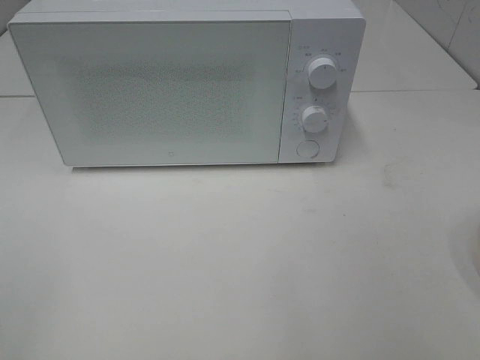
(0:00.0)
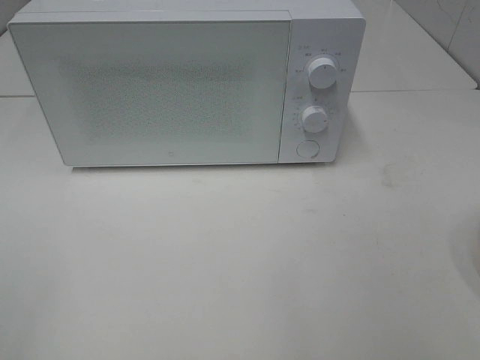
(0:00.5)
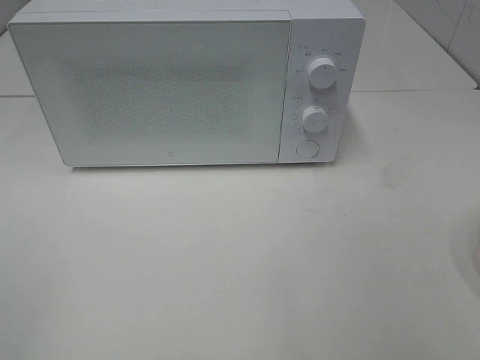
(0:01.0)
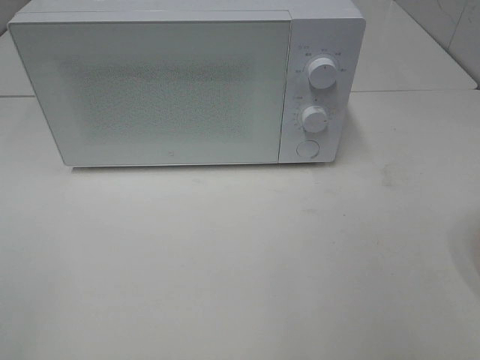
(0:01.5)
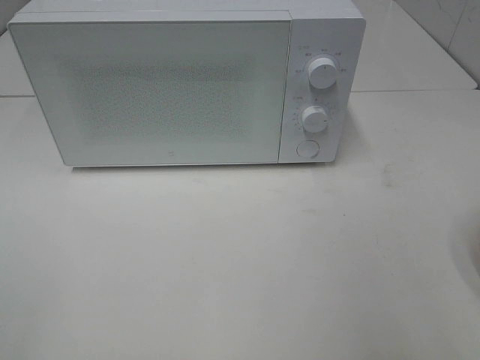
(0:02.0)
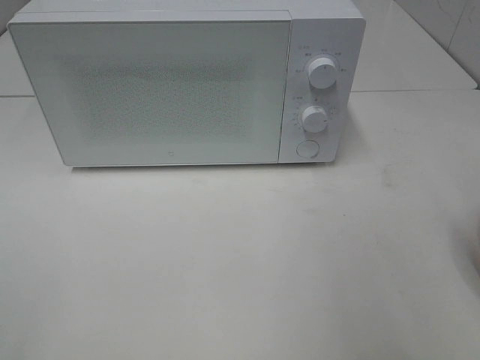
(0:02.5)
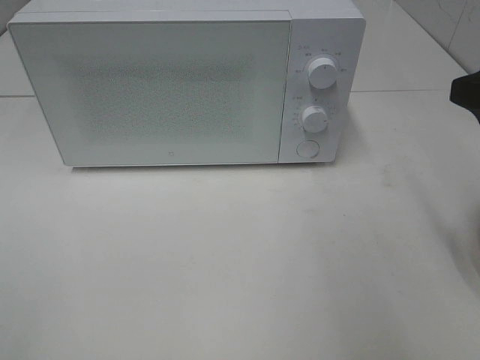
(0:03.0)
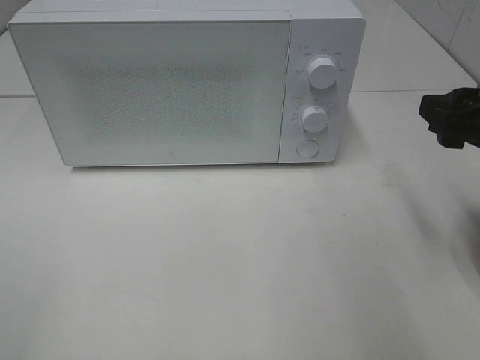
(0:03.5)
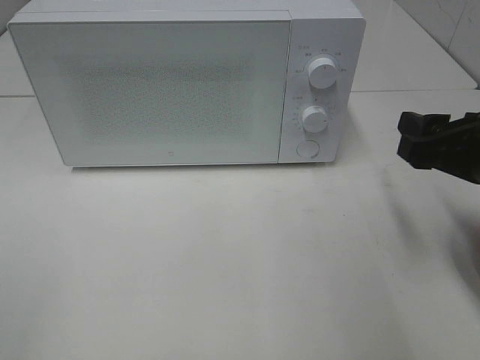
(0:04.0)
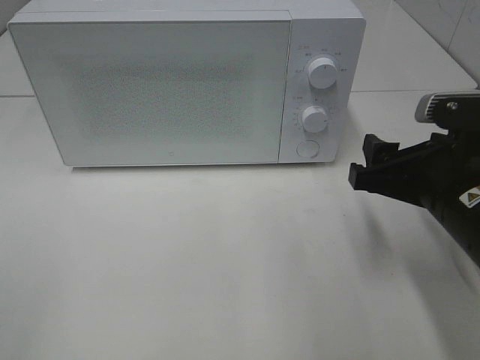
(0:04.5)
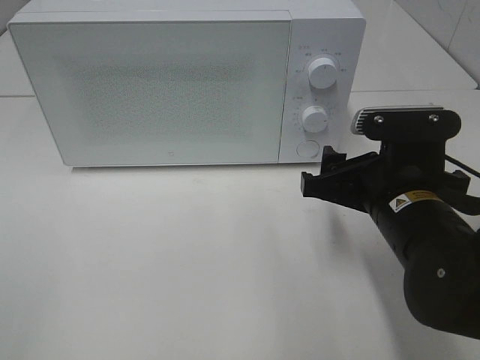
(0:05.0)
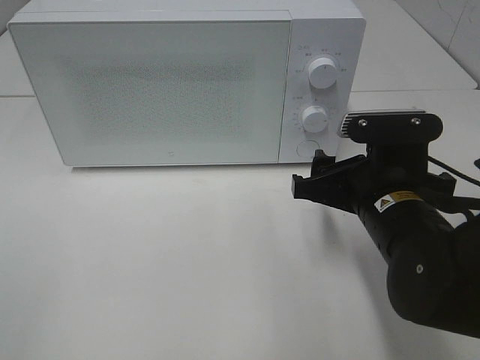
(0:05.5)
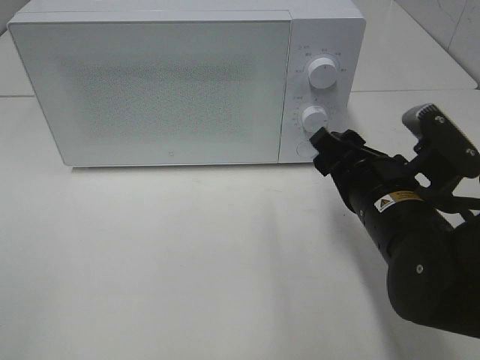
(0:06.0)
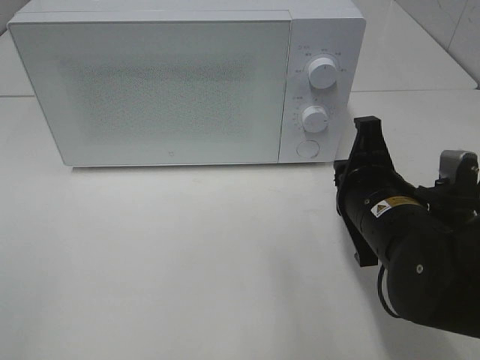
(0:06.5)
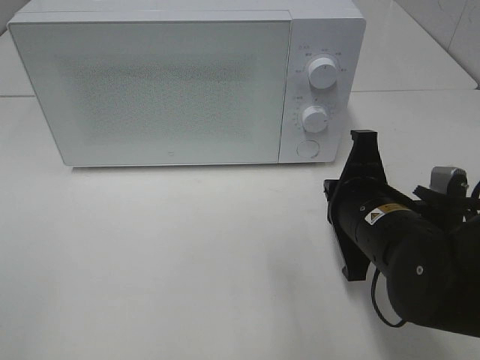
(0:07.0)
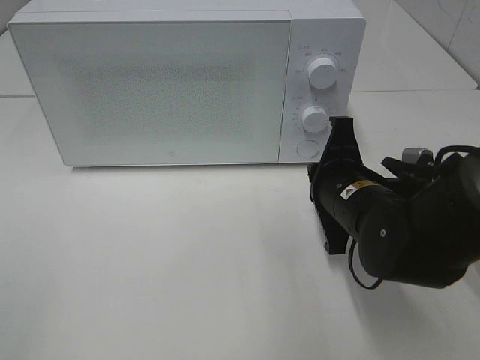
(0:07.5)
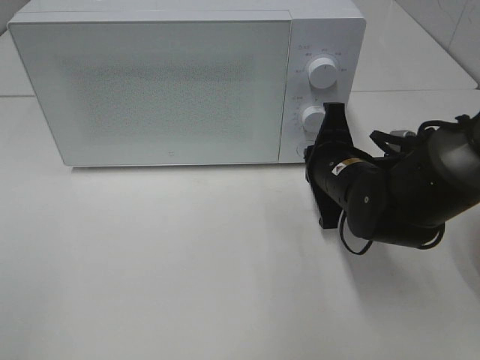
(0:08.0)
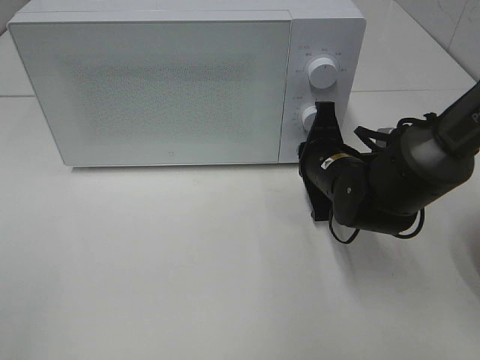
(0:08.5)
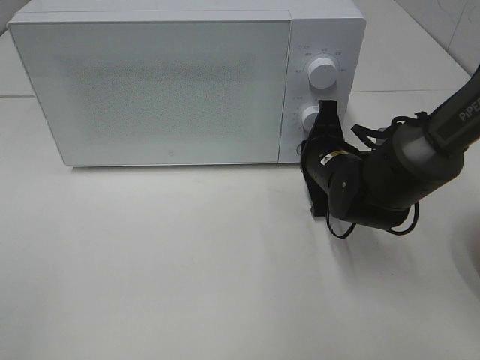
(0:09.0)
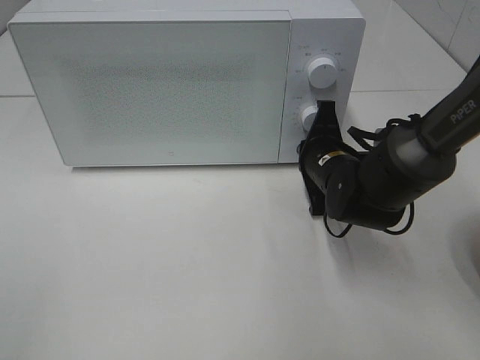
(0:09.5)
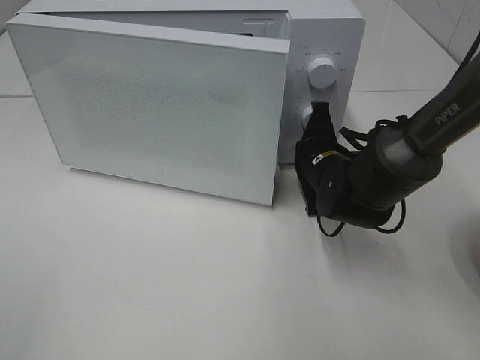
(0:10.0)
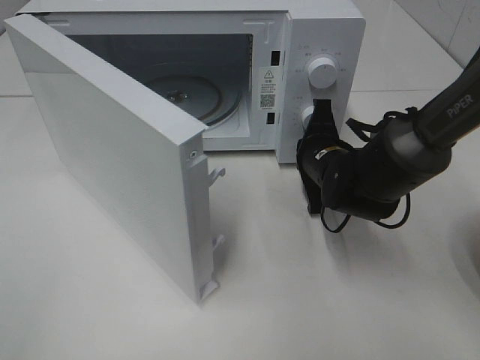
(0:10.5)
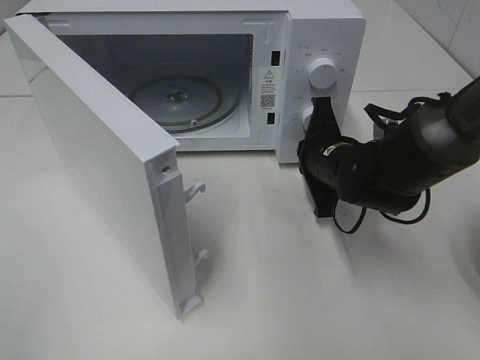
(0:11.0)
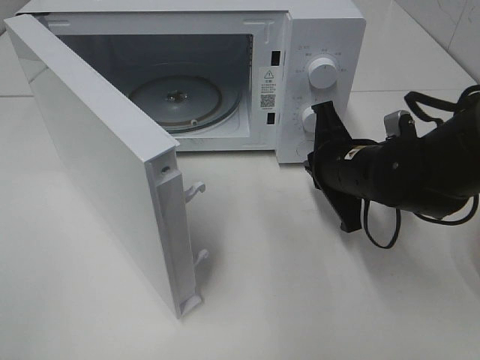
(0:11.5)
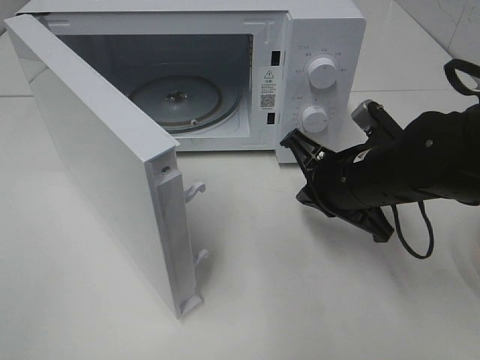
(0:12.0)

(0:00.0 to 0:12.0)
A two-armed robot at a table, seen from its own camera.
Task of the whole recording: Heat the burger.
Step, 0:00.0 - 0:11.0: Right hand: press the switch.
0:02.0 - 0:04.0: The right gripper moves forward and downward, about 15 cm.
0:04.0 - 0:06.0: The right gripper moves to the left and downward, roughly 10 cm.
0:06.0 - 0:08.0: The right gripper shifts about 10 cm forward, and closes up.
0:08.0 - 0:10.0: The right gripper changes place by some 5 cm.
0:10.0 - 0:12.0: The right gripper is displaced backward and upward by some 10 cm.

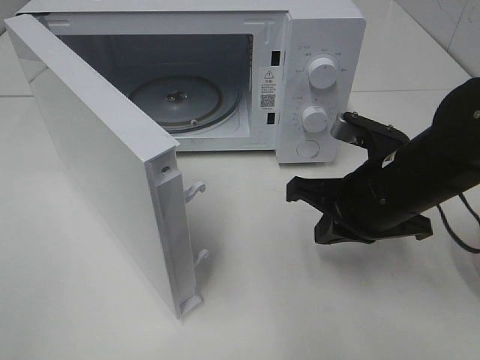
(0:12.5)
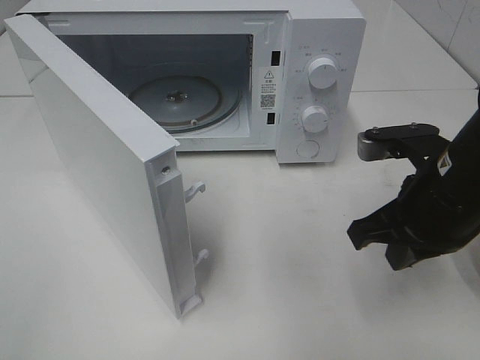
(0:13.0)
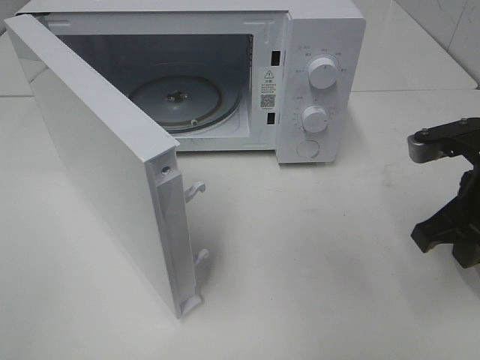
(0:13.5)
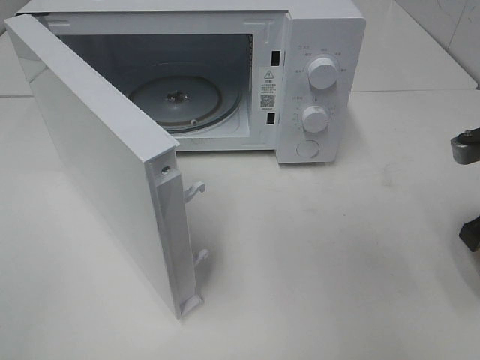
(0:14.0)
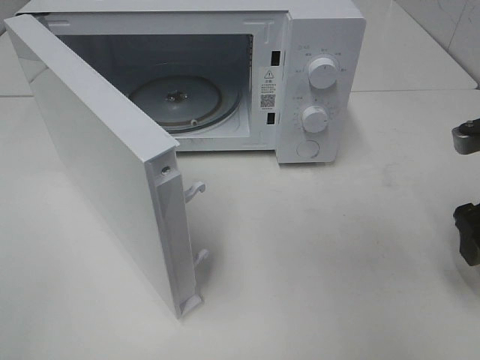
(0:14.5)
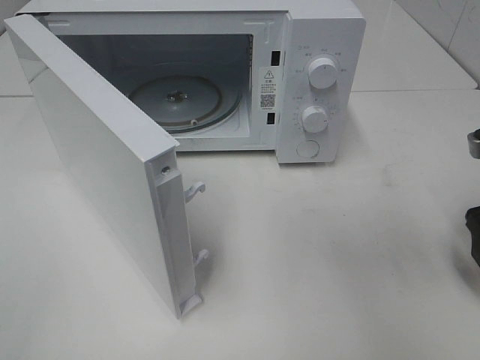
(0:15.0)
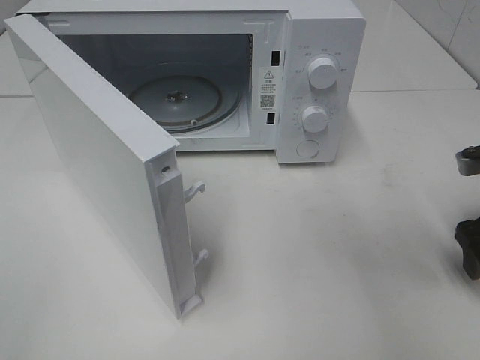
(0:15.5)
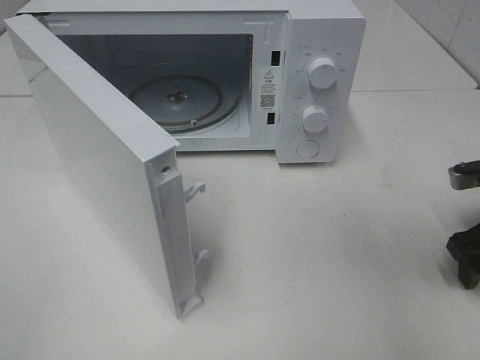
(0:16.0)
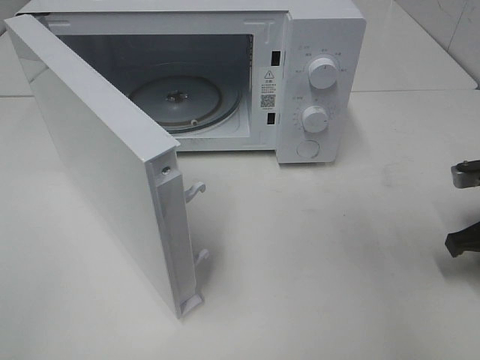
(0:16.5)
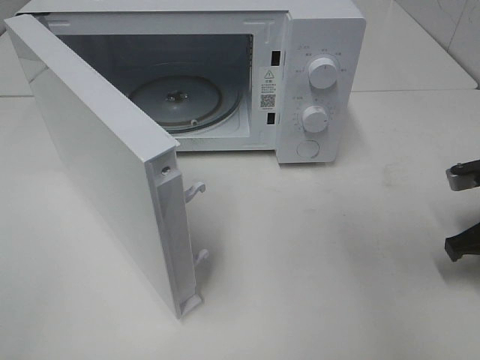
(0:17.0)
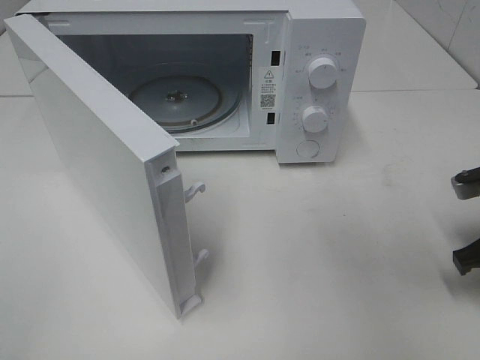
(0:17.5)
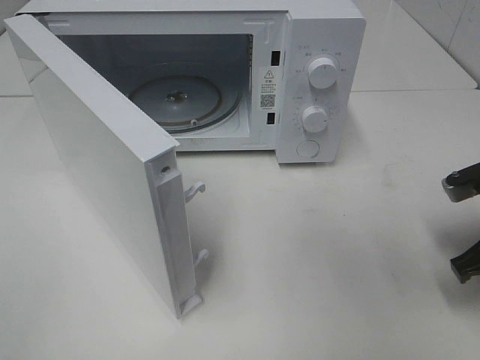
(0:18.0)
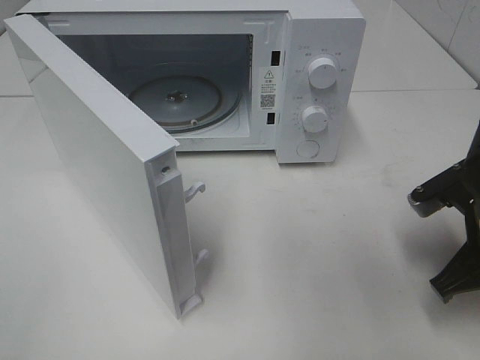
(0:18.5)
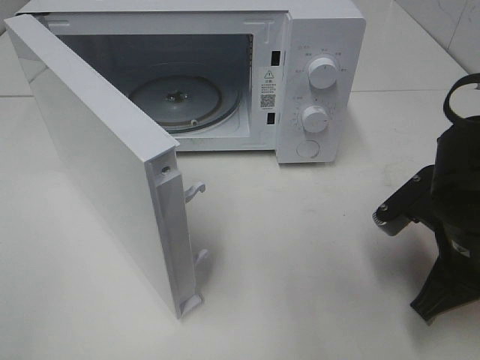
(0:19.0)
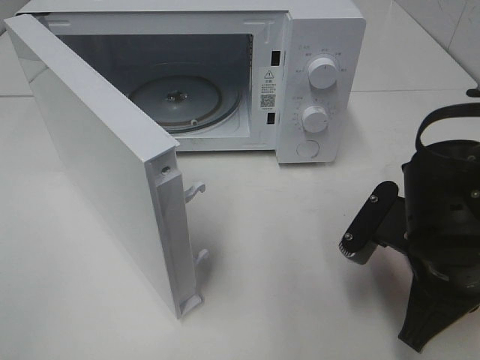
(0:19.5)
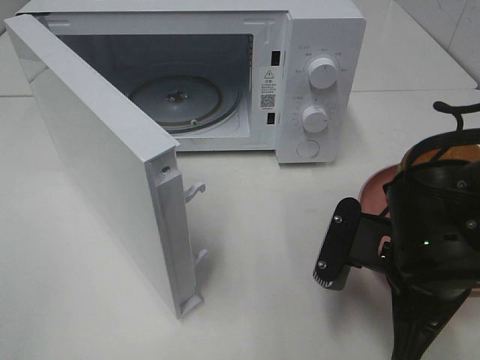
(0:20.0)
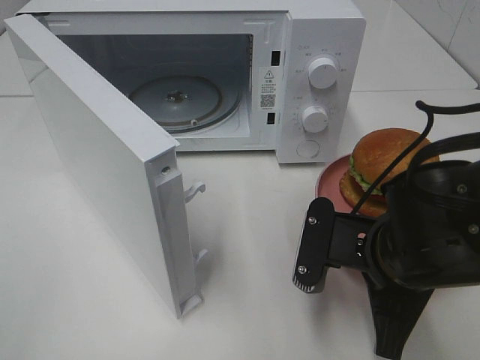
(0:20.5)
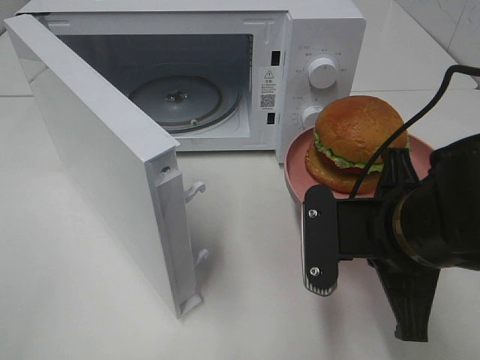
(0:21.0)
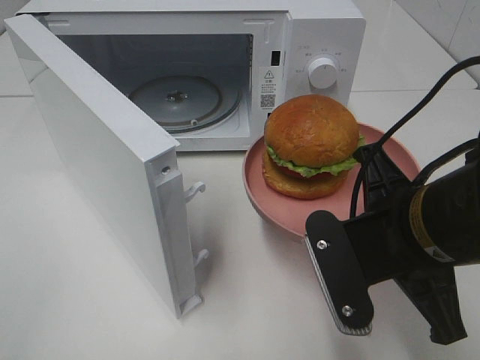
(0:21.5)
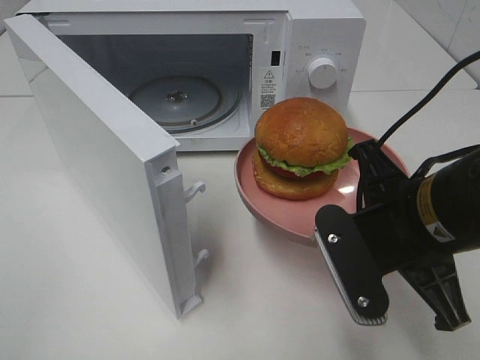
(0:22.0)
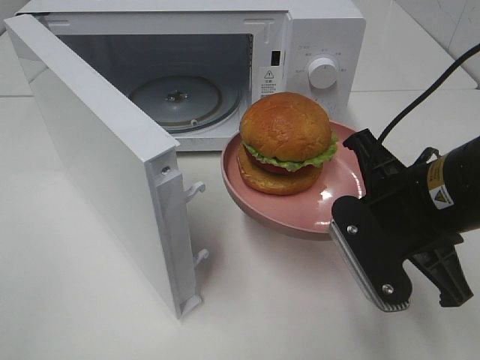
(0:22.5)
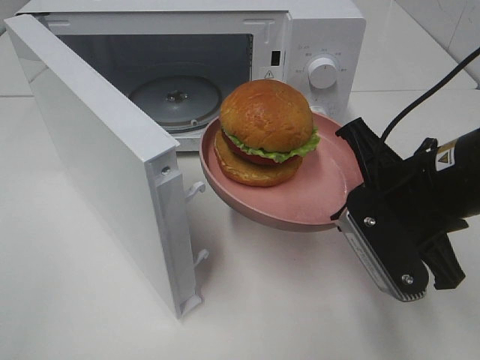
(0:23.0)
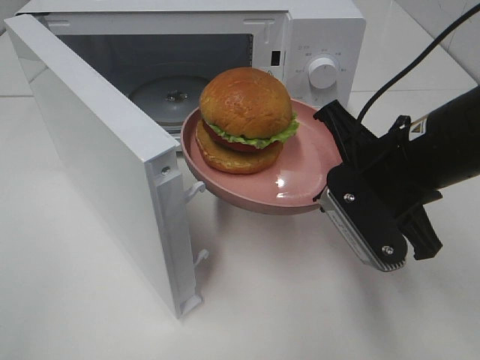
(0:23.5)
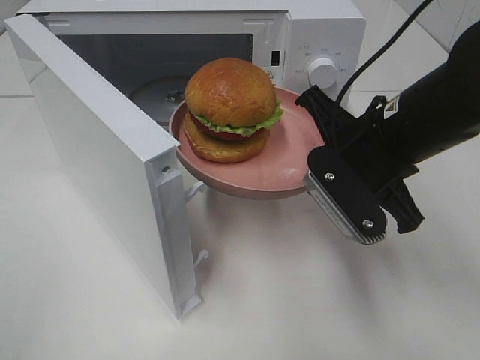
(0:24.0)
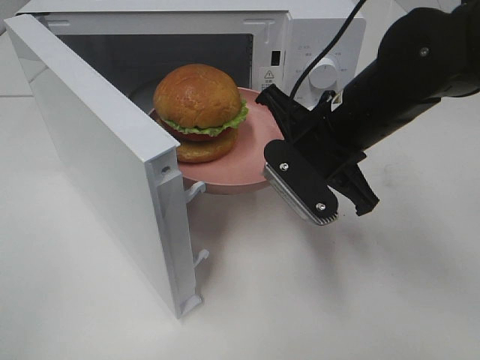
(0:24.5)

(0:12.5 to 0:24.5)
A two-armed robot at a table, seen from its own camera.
Task of the whole recording: Heat the burger.
Step, 0:12.5 - 0:16.5: Right hand: grab the plate with the hamburger.
0:12.5 - 0:14.5: The right gripper shifts roughly 15 cm to the right, and opens its fingers.
0:14.5 - 0:16.5: The right gripper shifts some 10 cm downward, and closes its fingers.
0:16.5 - 0:18.5: The right gripper heads to the left, covering roughly 10 cm.
0:18.5 - 0:20.5: The right gripper is displaced to the left by roughly 10 cm.
0:20.5 - 0:22.5: The right gripper is displaced upward by about 5 cm.
0:22.5 - 0:24.5: The right gripper heads forward and to the left, covering about 10 cm.

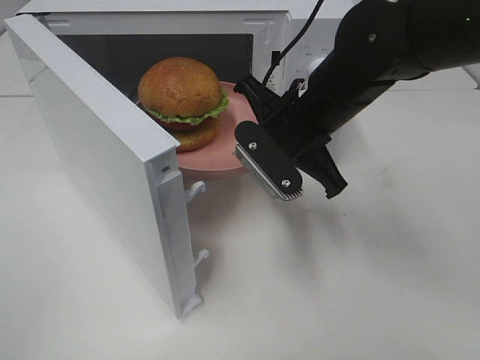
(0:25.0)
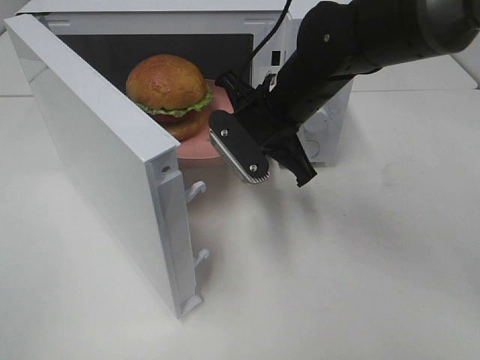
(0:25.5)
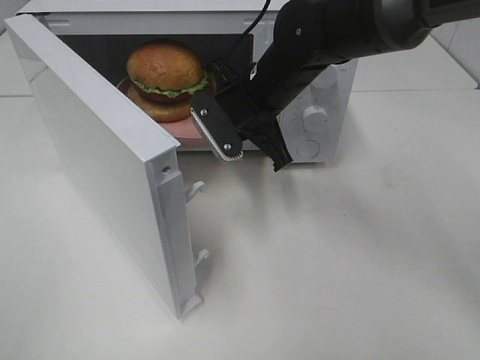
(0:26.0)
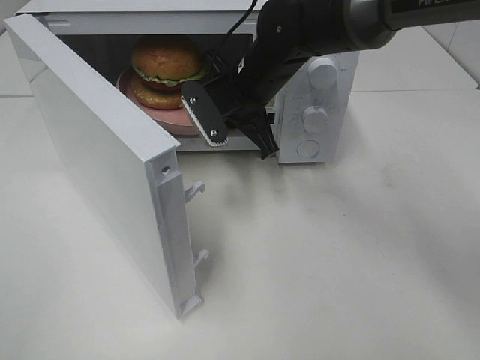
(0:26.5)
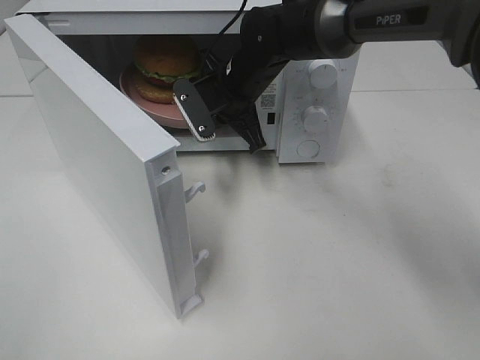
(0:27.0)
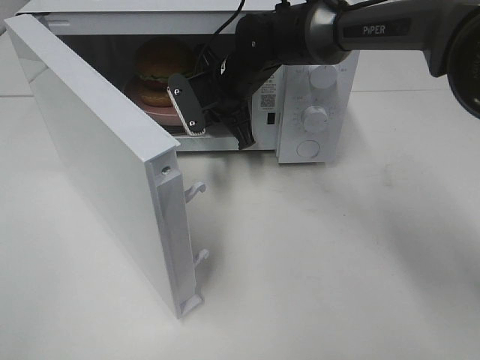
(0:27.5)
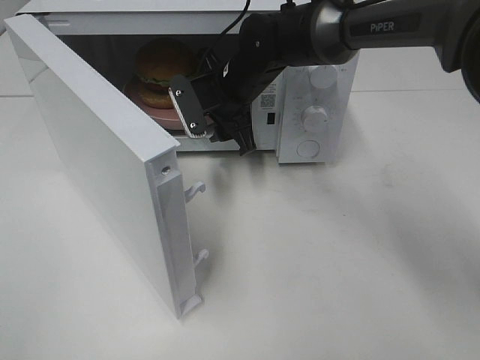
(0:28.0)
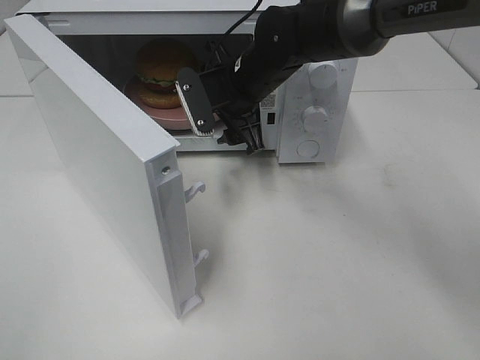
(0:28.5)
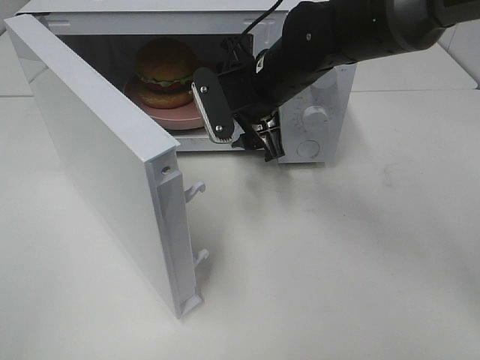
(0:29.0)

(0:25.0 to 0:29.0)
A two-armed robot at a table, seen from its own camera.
Task of the whole recording: Heat the burger.
Step, 0:25.0 - 0:27.5: Right hand: place the plate in the microwave.
0:25.0 - 0:27.0: The right gripper shifts about 15 cm forward and to the left.
0:27.0 - 0:29.0: The right gripper moves backward, about 5 cm, and opens.
